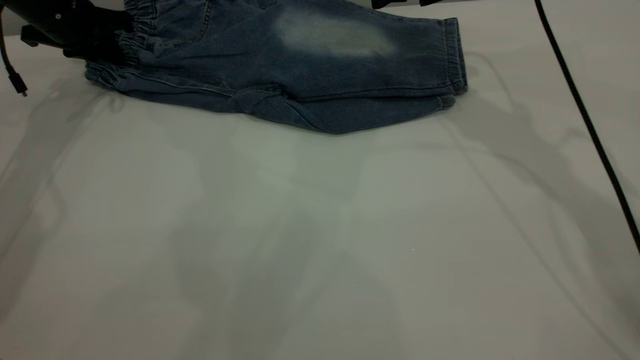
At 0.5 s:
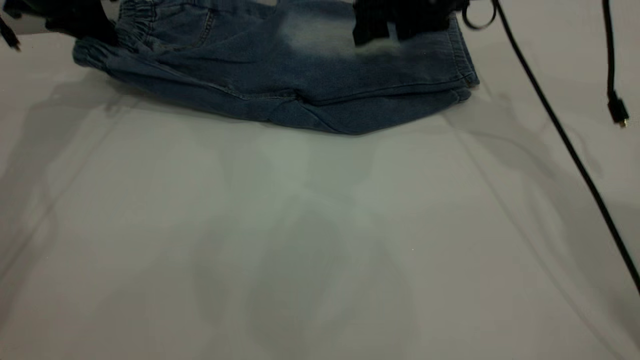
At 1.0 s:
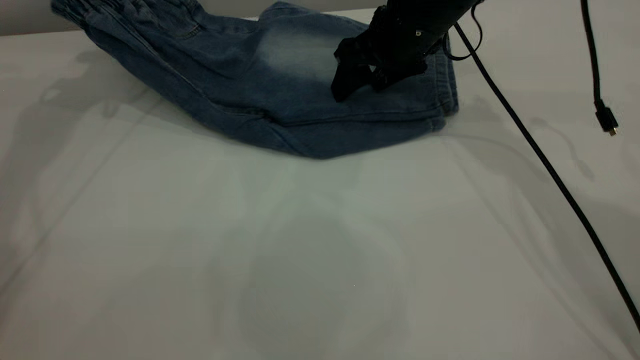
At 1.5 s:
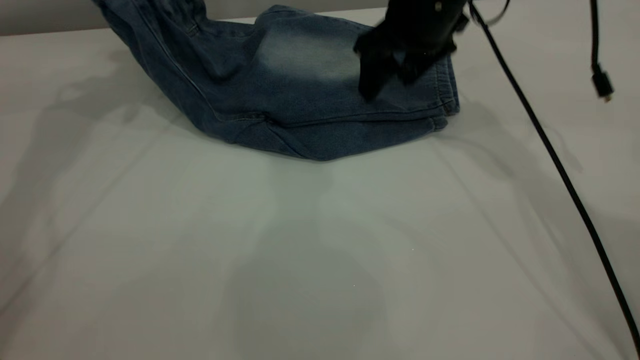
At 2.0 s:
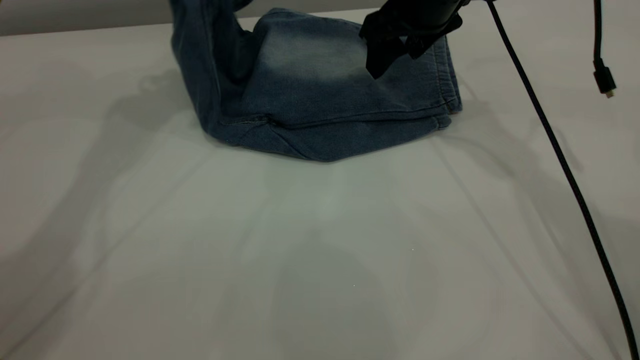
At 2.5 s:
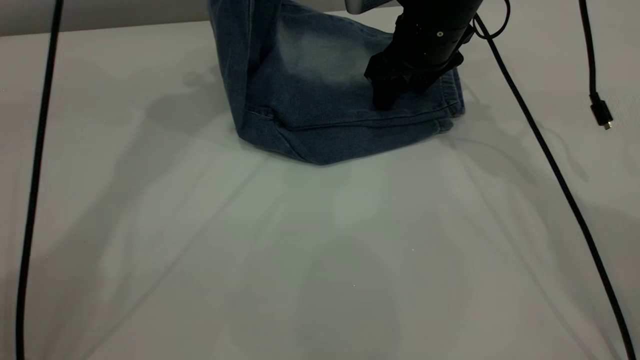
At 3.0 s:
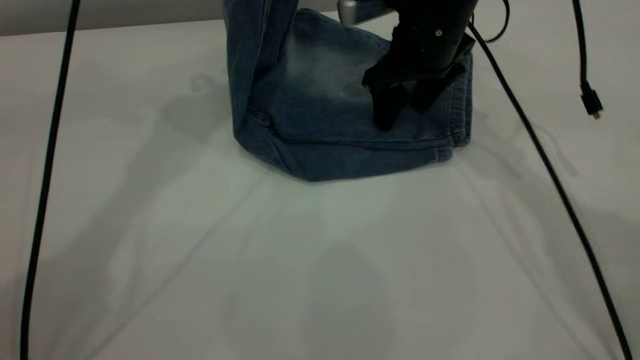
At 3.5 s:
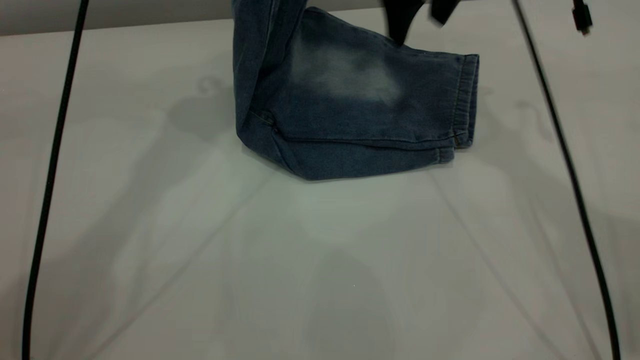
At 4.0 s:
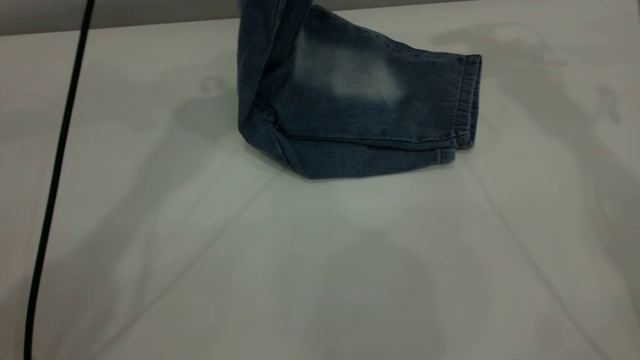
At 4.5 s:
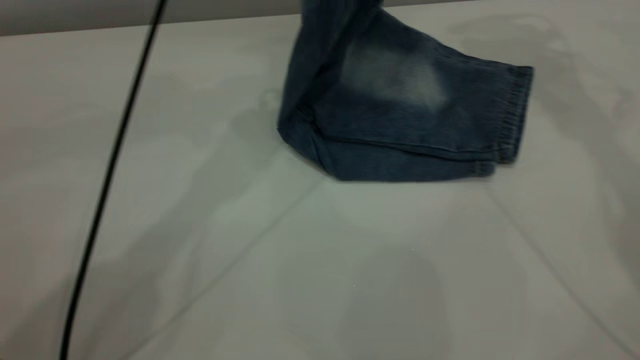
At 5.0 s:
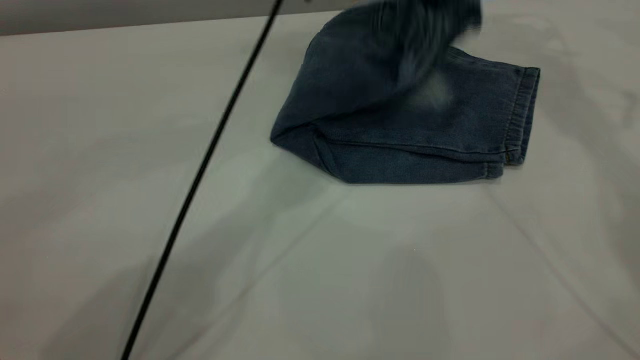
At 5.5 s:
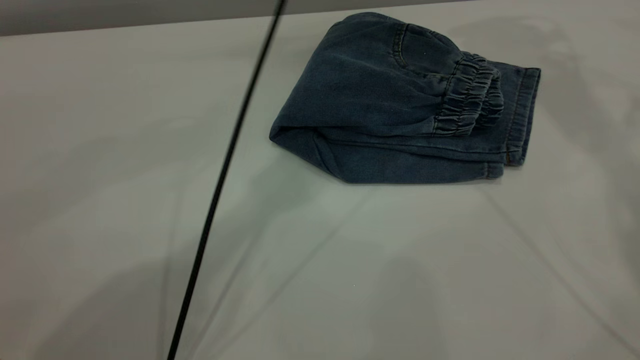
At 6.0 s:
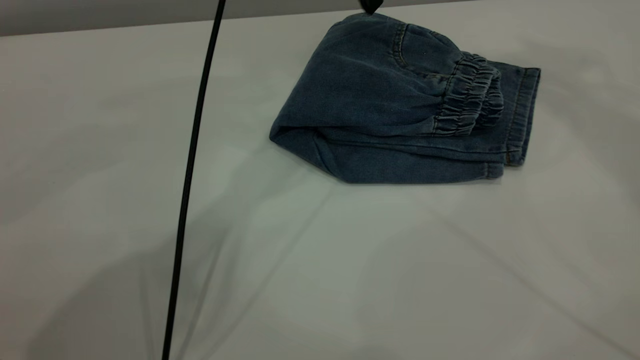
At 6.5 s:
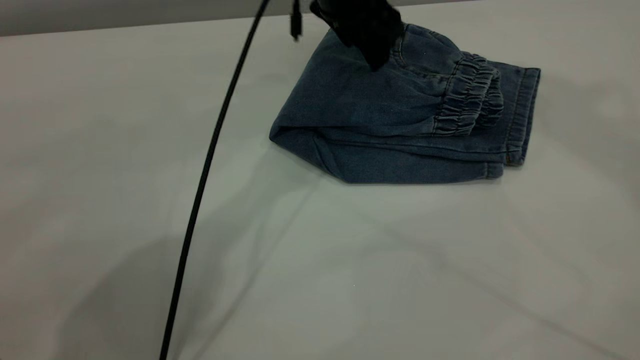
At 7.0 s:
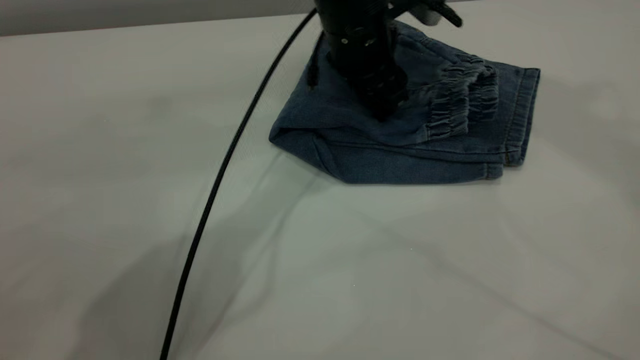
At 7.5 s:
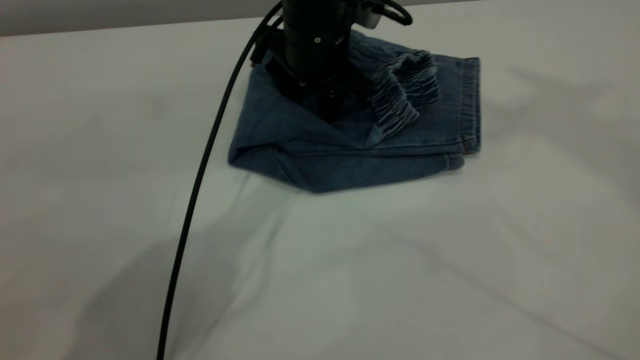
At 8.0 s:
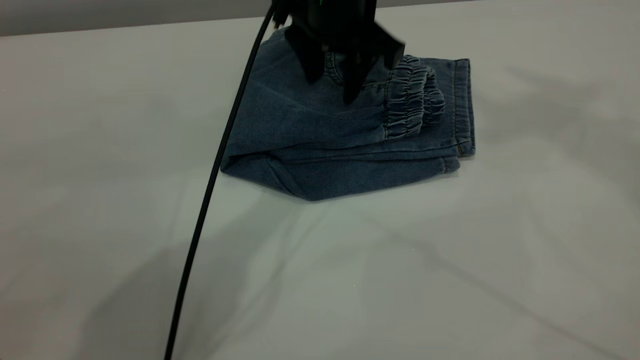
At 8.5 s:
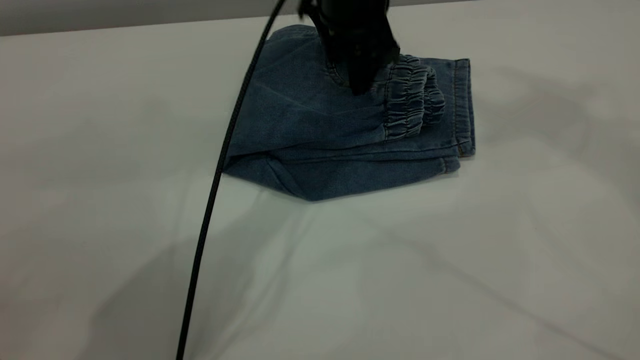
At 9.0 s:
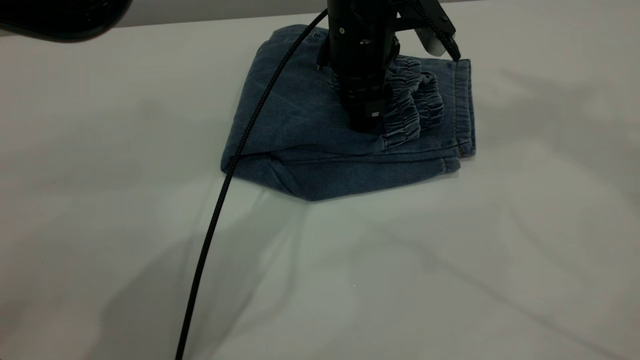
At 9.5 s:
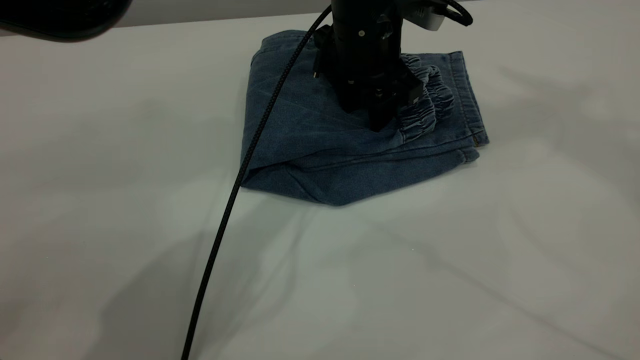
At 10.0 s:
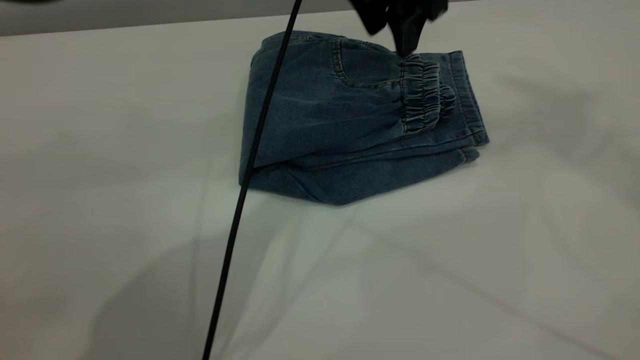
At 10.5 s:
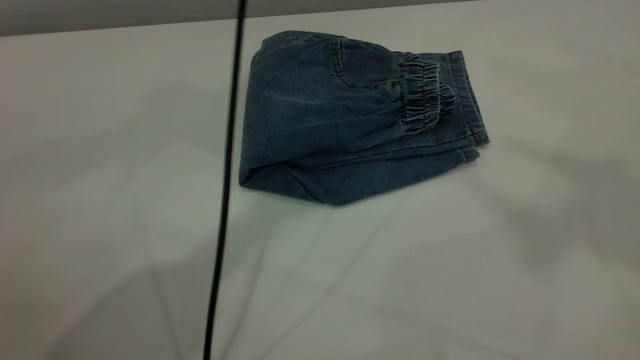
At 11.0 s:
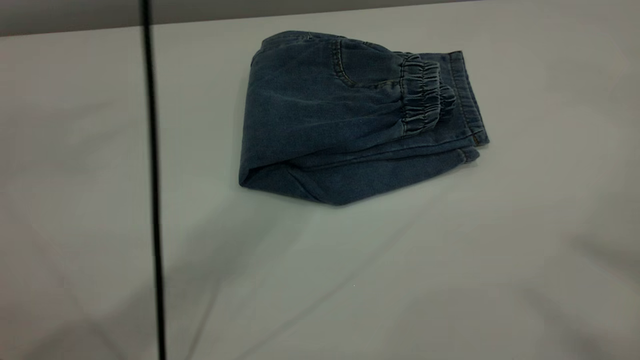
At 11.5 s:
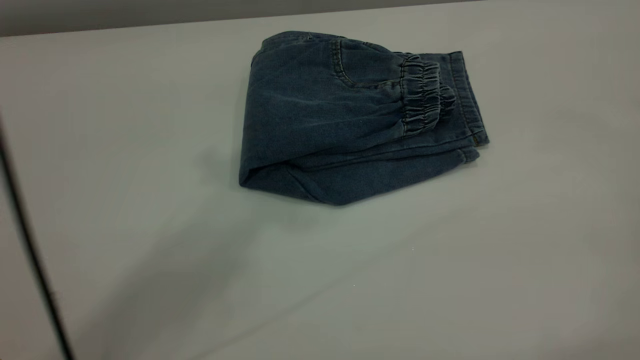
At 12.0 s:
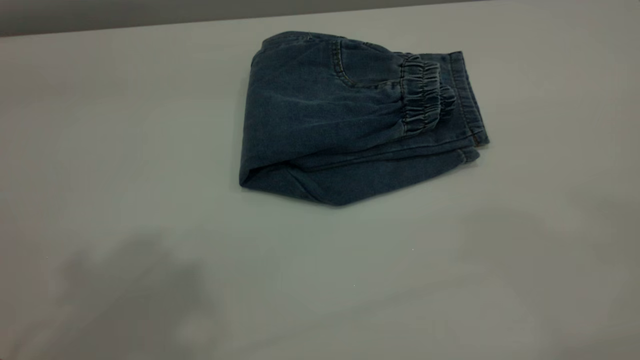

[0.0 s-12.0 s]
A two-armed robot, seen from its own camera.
Step, 0.0 to 5.5 s: Fold the pants from left to right.
0.0 to 2.0 s: The left gripper shifts roughly 20 cm upward and to the right.
2.0 to 4.0 s: The left gripper is displaced to the right by approximately 10 cm. Meanwhile the right gripper is displaced upward and to the right by some 20 cm.
4.0 to 6.0 s: The right gripper moves upward and backward, approximately 25 cm; the left gripper heads downward and to the right, covering about 10 cm, and opens up.
6.0 to 8.0 s: The right gripper goes about 10 cm backward and upward. The left gripper moves downward, approximately 5 cm.
8.0 to 10.0 s: The left gripper ends up some 5 cm from where it was.
10.0 to 12.0 s: The left gripper moves upward, backward and to the left, roughly 50 cm, while the right gripper travels backward by about 35 cm.
